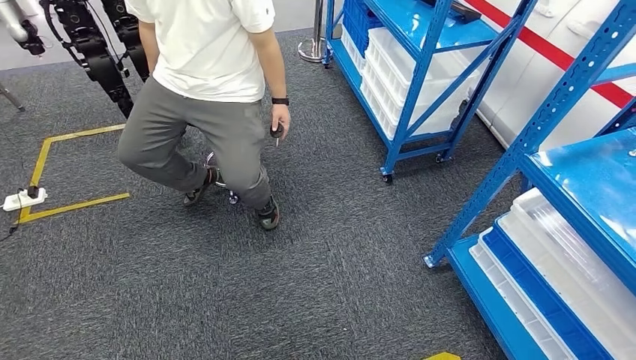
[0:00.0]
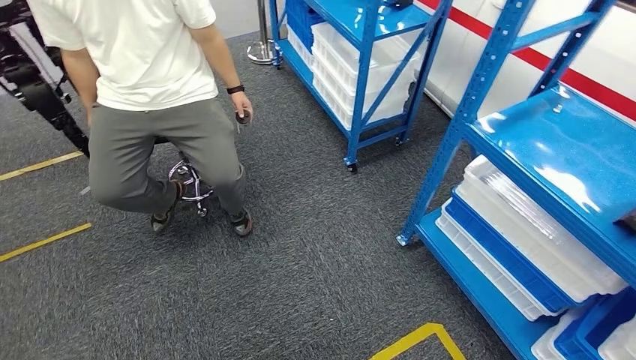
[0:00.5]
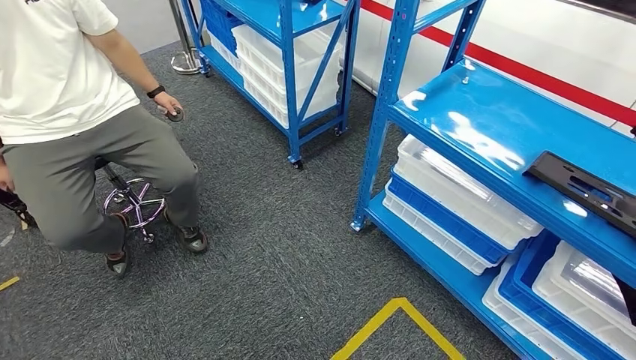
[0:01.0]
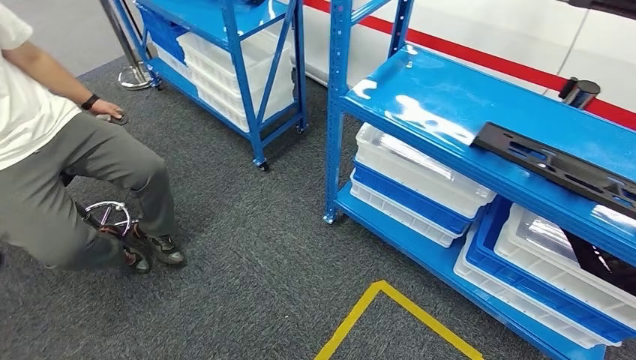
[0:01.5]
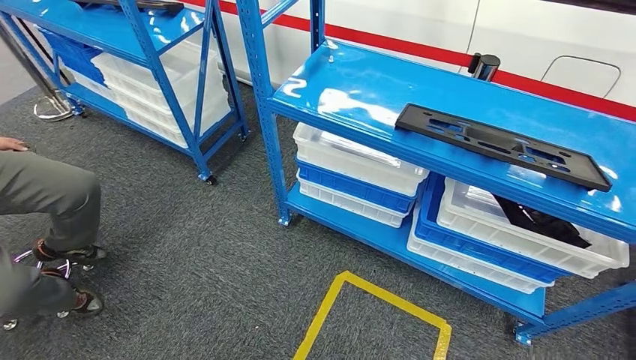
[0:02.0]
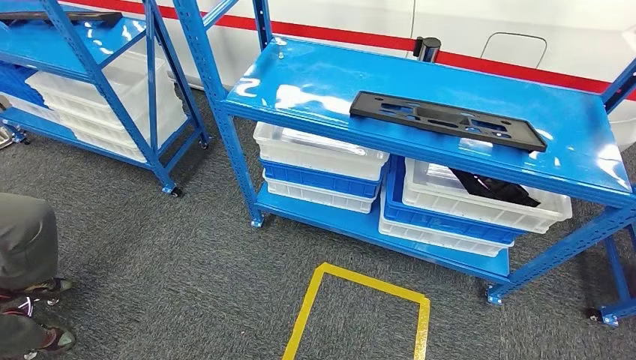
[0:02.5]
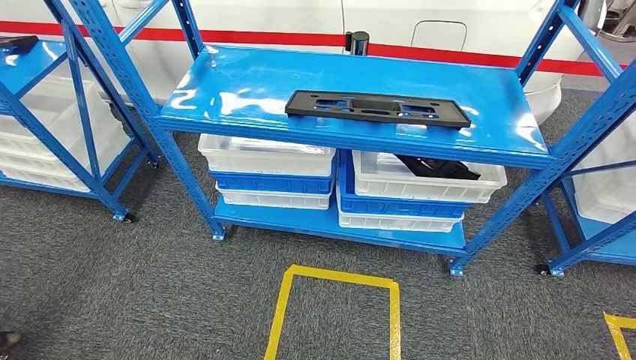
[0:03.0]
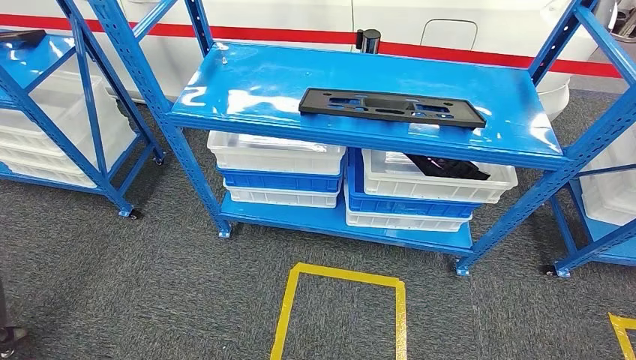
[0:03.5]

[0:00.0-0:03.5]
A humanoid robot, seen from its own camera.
Step, 0:00.0 to 0:03.5: Return to the initial position at the shelf.
